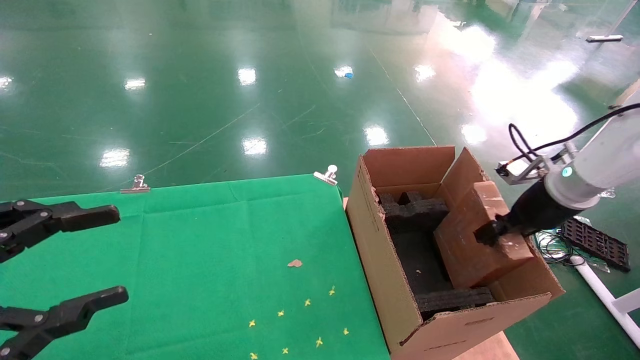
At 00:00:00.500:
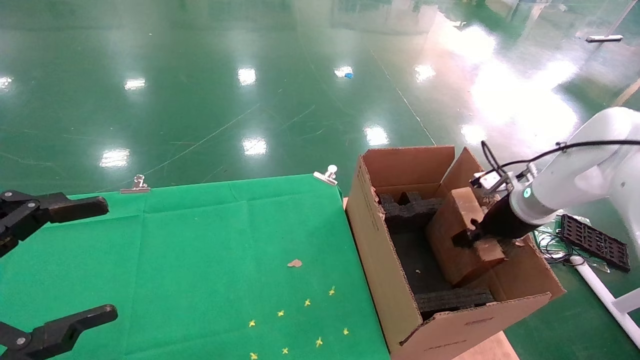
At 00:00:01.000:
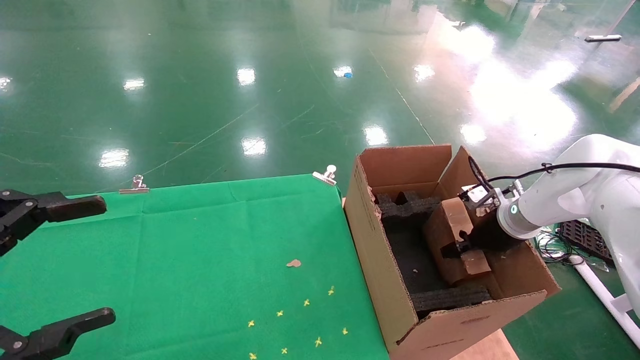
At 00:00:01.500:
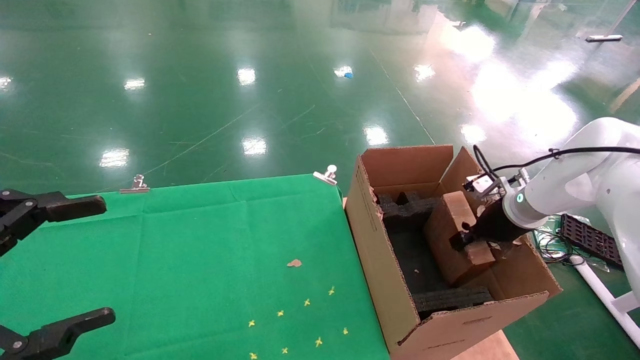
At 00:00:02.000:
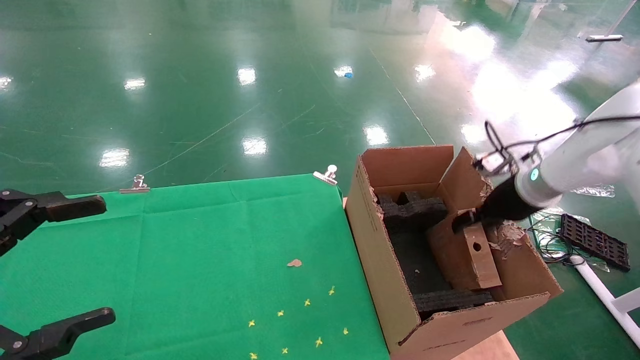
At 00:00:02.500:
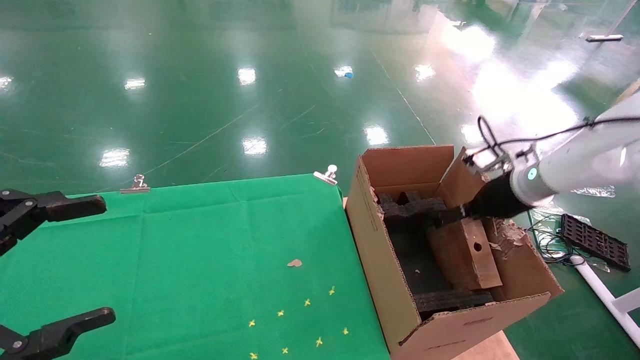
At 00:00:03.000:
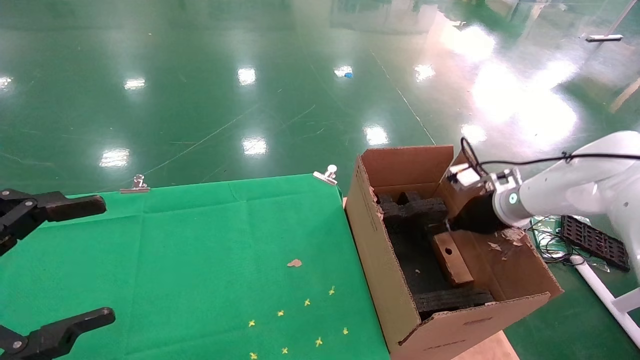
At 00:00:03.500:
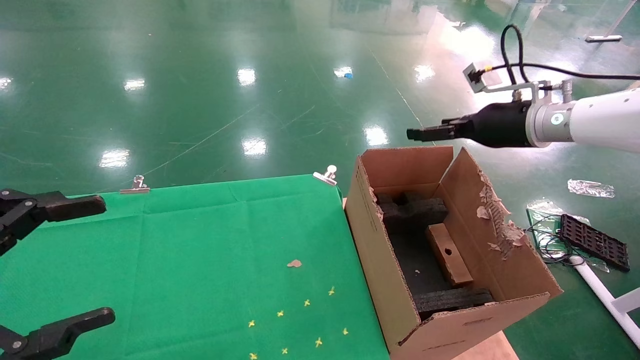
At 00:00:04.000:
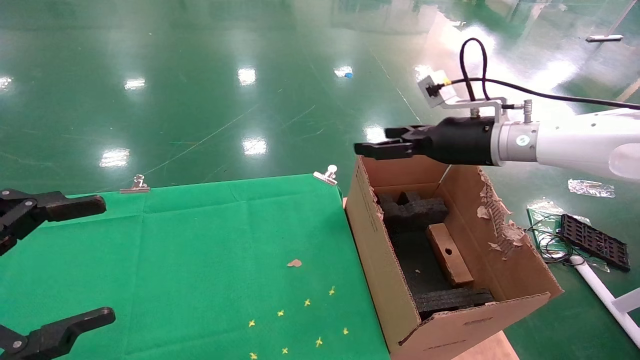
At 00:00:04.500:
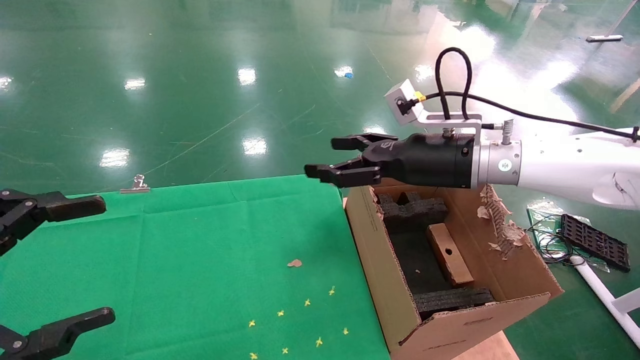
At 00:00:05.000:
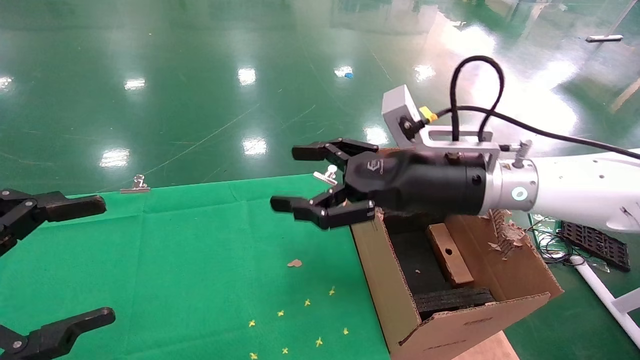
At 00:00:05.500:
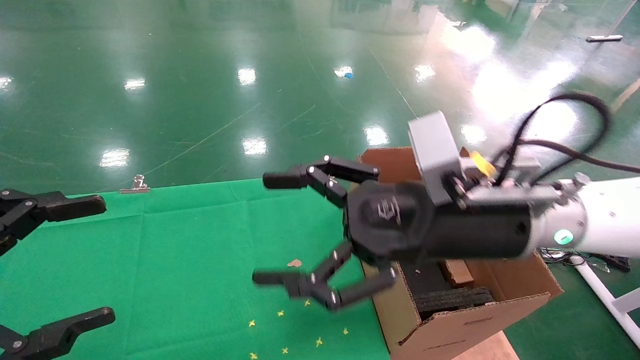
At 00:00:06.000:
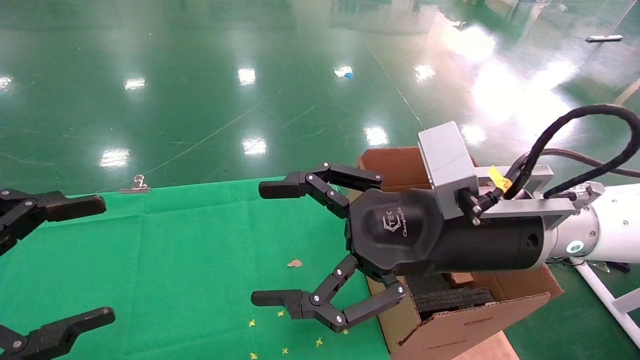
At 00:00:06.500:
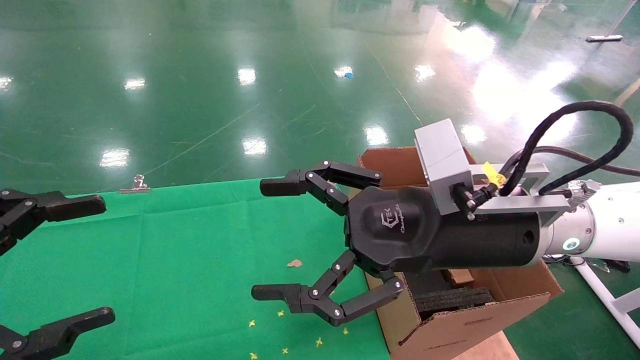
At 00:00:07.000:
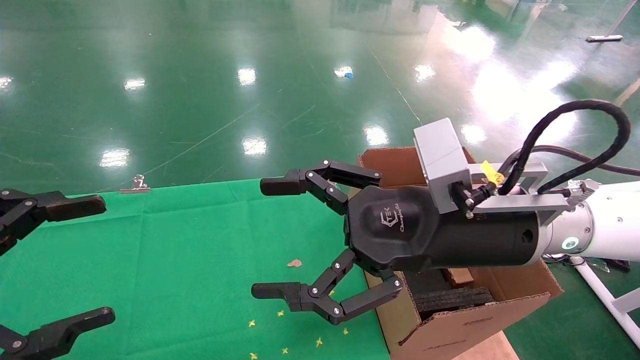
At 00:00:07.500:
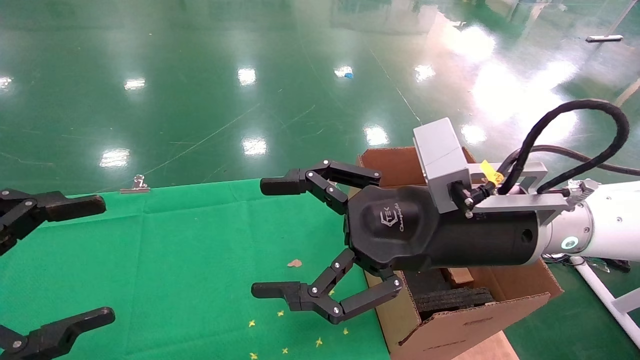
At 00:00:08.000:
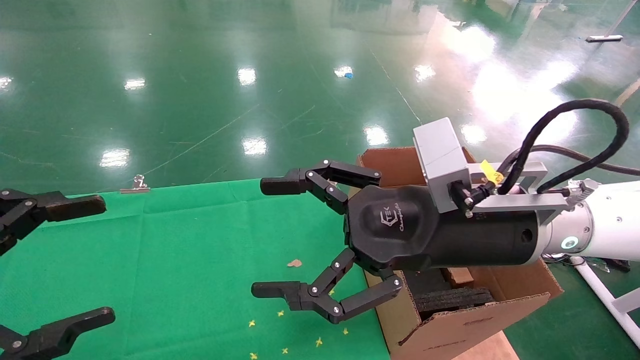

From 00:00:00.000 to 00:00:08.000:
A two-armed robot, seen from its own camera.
Task of the whole recording: using a robotic arm to pick up a cardboard box and palace it the carton.
Step, from 00:00:00.000 to 00:00:03.000: Place the mouse and the power cord paper box into the container.
From 00:00:00.000 to 00:00:02.000: The right gripper travels downward and back again, roughly 10 cm each way, and opens. Meanwhile the left gripper opens.
From 00:00:02.000 to 00:00:04.000: The right gripper travels to the left and upward by approximately 10 cm, and opens.
From 00:00:04.000 to 00:00:06.000: The right gripper heads backward and to the left, covering approximately 20 cm.
From 00:00:06.000 to 00:00:08.000: Neither gripper changes place.

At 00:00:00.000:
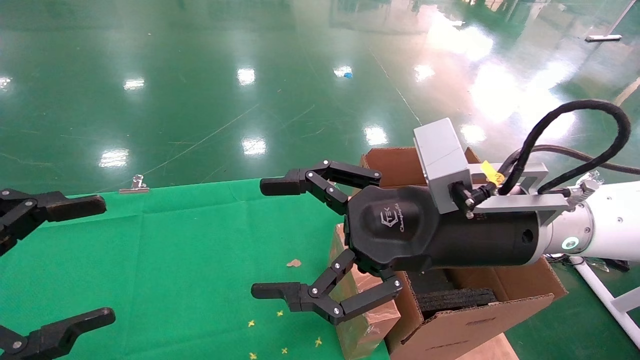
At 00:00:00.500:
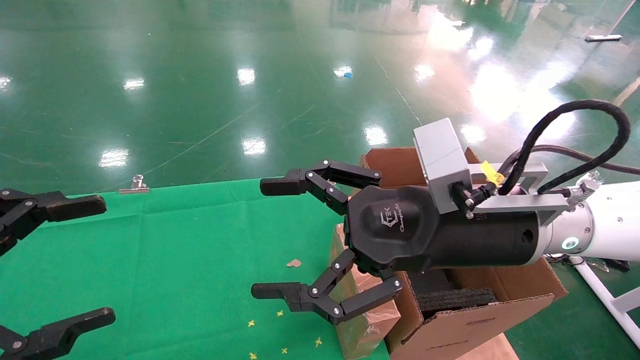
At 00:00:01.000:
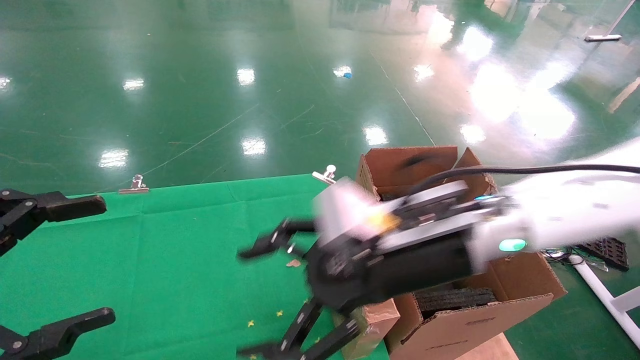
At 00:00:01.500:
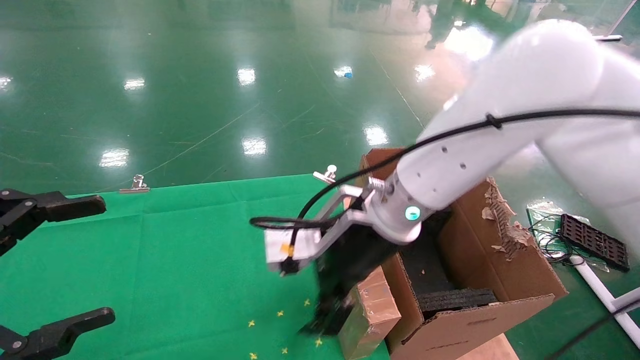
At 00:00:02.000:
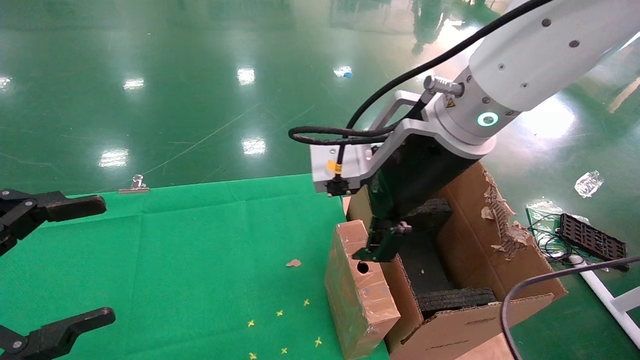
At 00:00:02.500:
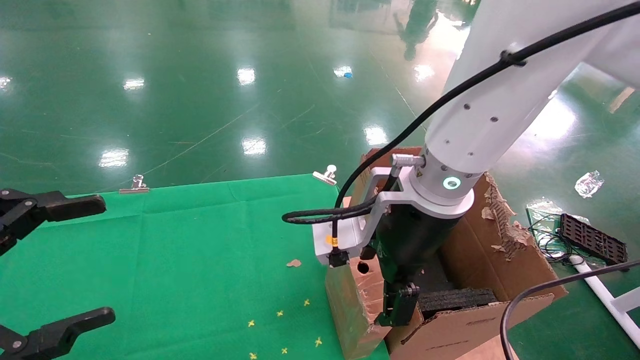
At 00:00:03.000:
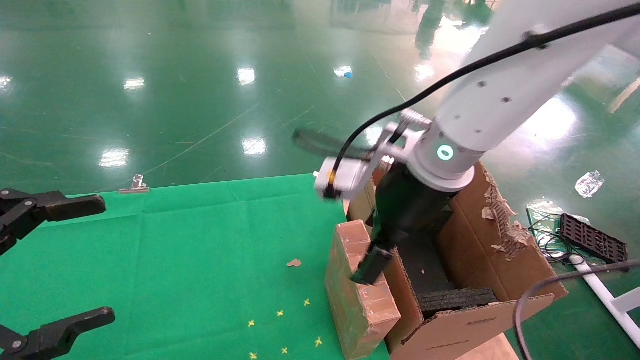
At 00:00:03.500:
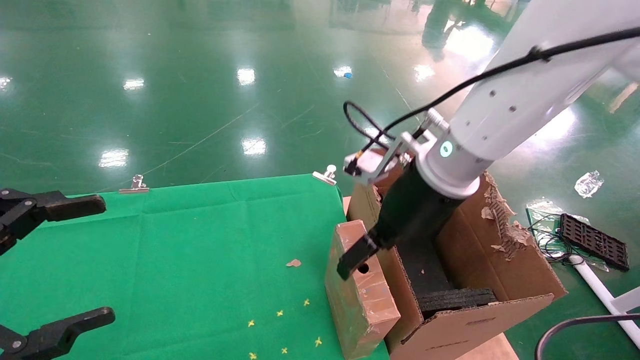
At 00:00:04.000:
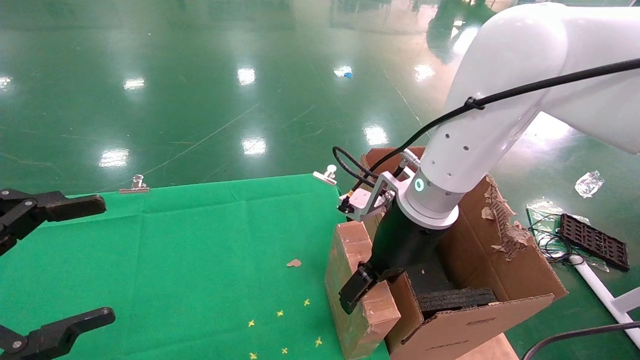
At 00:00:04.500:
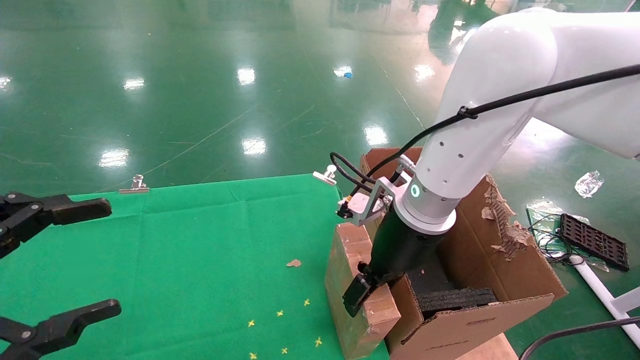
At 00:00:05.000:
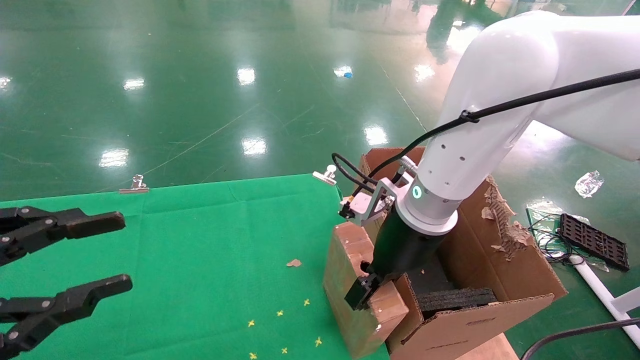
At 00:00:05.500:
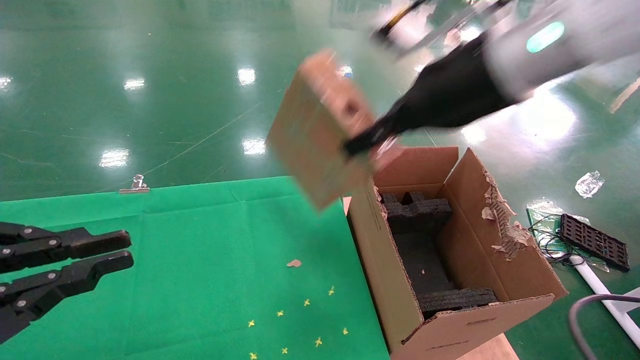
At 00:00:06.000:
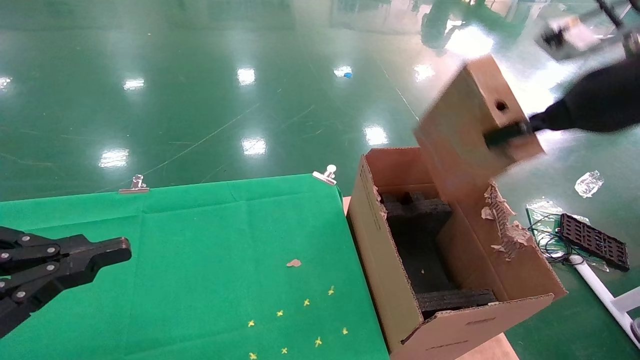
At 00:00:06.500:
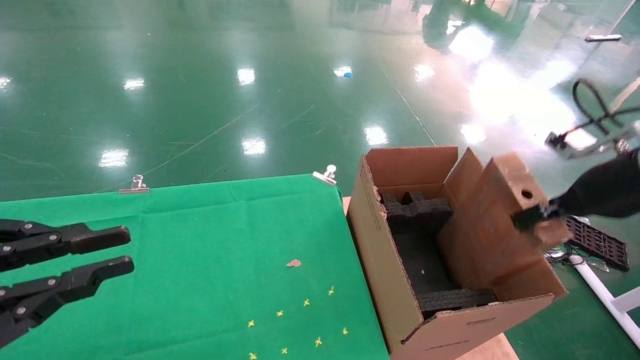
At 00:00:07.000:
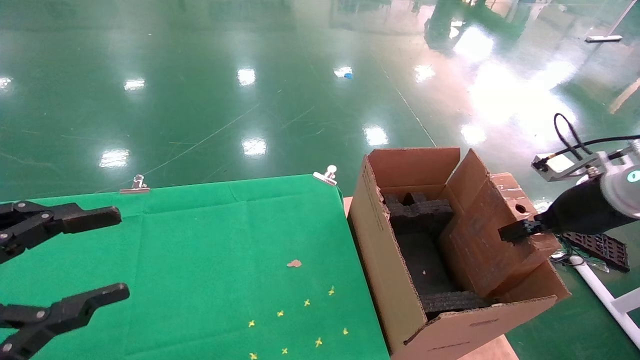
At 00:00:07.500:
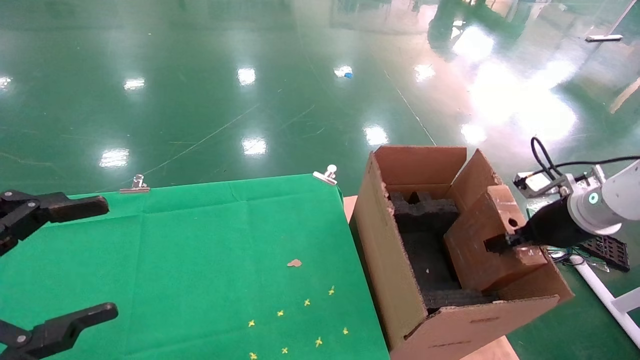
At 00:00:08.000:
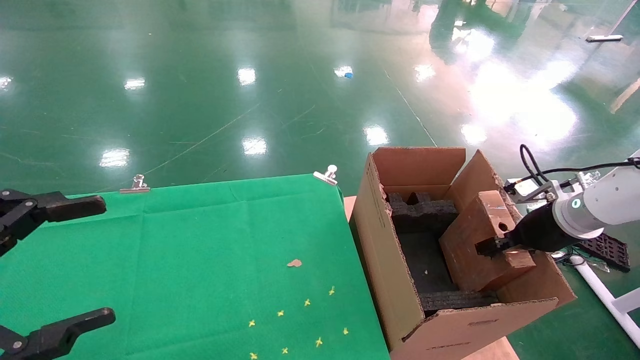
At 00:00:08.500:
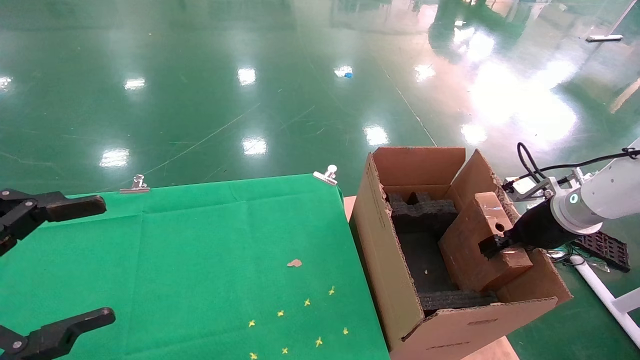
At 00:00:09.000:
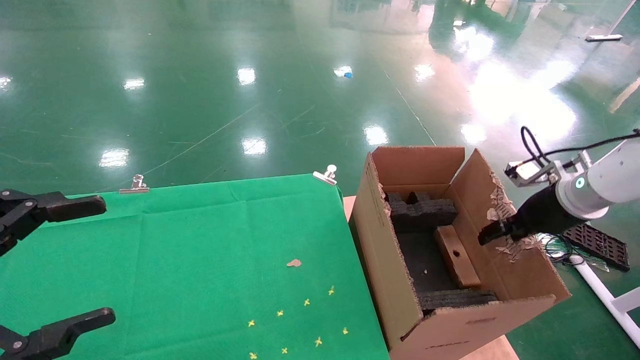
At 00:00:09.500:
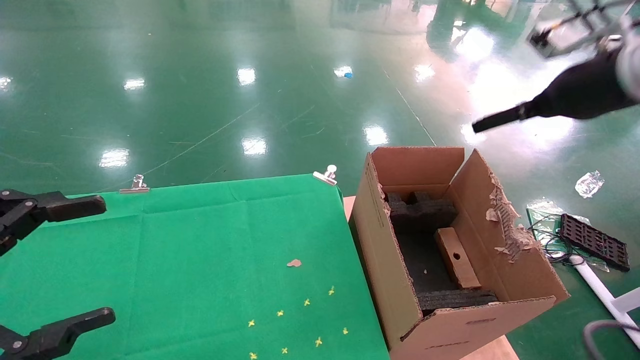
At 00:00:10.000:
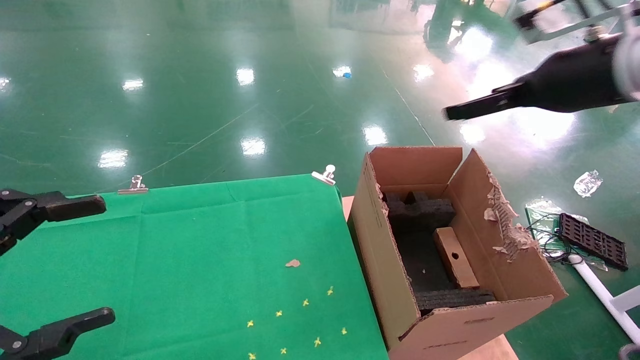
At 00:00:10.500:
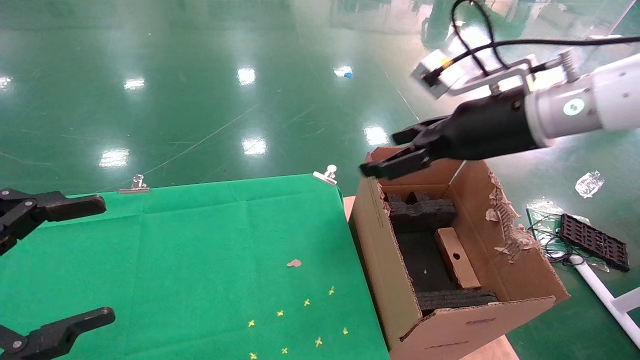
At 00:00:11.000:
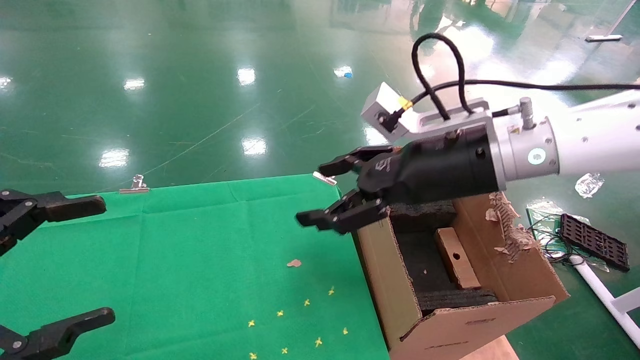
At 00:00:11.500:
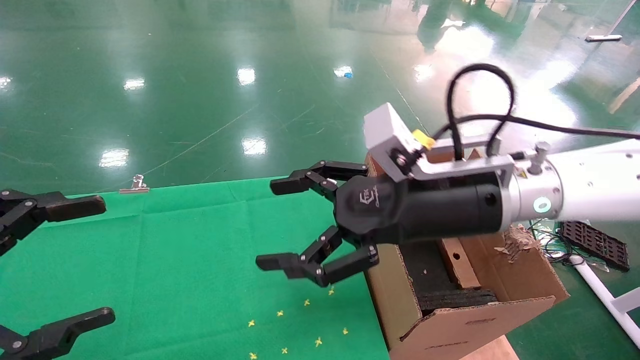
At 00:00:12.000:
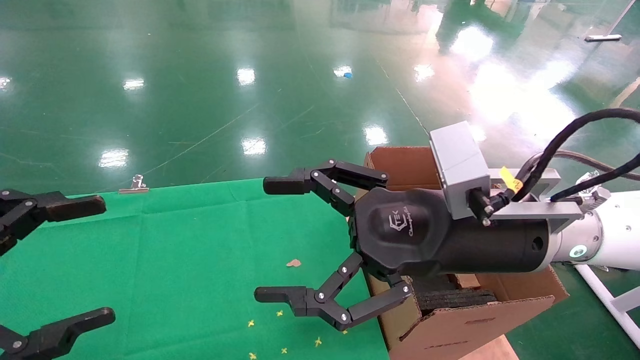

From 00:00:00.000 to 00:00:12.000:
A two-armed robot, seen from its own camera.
Task of the whole recording: using a robotic arm to pick up a cardboard box and palace it the carton.
Step, from 00:00:01.000 to 00:00:05.000: Pick up the mouse and the power cord paper box.
Step, from 00:00:05.500 to 00:00:09.000: Place the mouse and the power cord paper box into the container.
From 00:00:00.000 to 00:00:02.000: The right gripper shifts approximately 10 cm upward, to the left and forward.
From 00:00:02.000 to 00:00:04.000: The right gripper moves downward, roughly 10 cm.
From 00:00:04.000 to 00:00:06.000: The left gripper closes; the right gripper is displaced to the right and upward by approximately 25 cm, and closes up.
From 00:00:06.000 to 00:00:08.000: The left gripper opens its fingers. Meanwhile the right gripper travels downward, to the right and forward by some 25 cm.
From 00:00:08.000 to 00:00:10.000: The right gripper heads upward and to the left, covering some 25 cm, and opens its fingers.
From 00:00:10.000 to 00:00:12.000: The right gripper shifts roughly 20 cm to the left, downward and backward.
